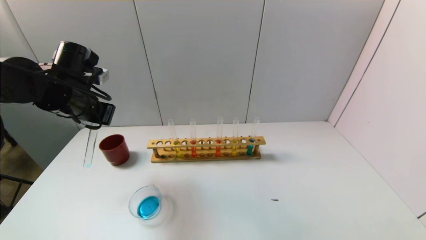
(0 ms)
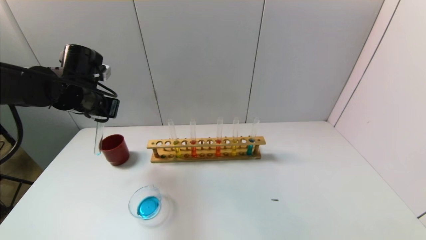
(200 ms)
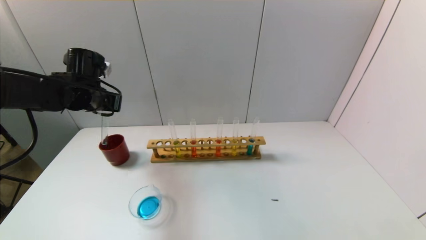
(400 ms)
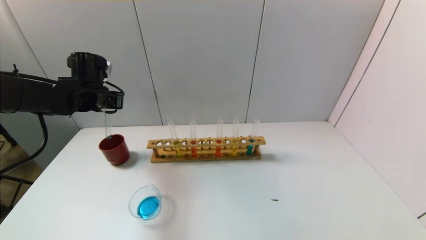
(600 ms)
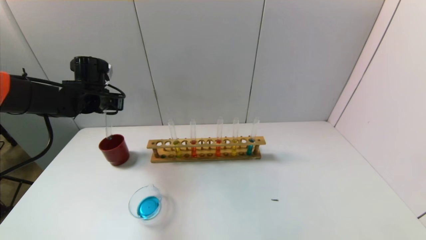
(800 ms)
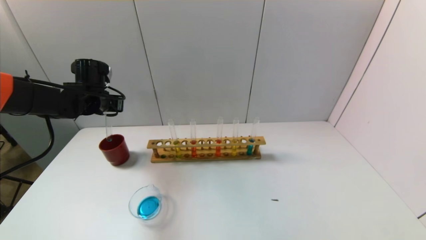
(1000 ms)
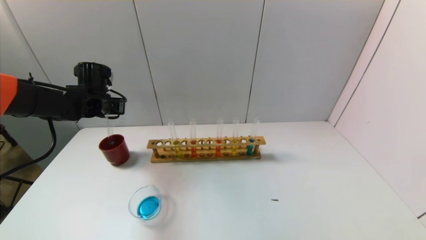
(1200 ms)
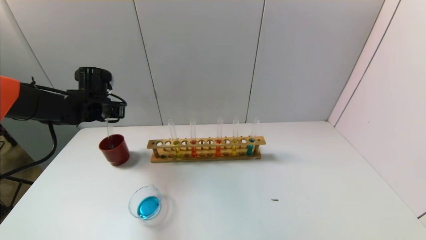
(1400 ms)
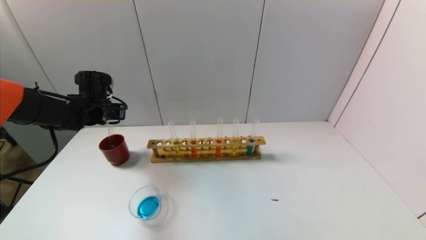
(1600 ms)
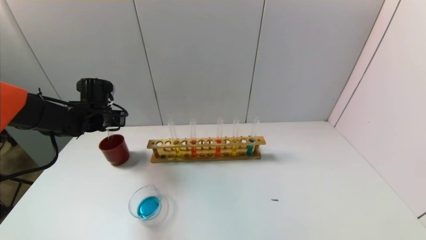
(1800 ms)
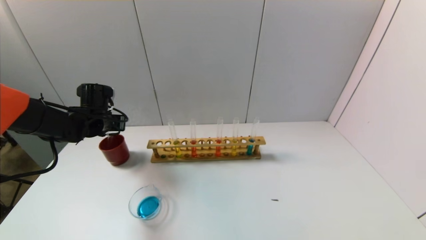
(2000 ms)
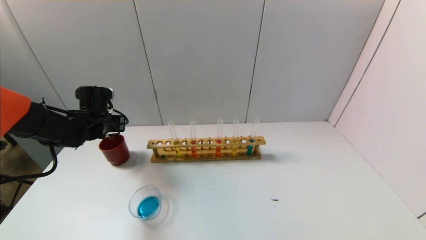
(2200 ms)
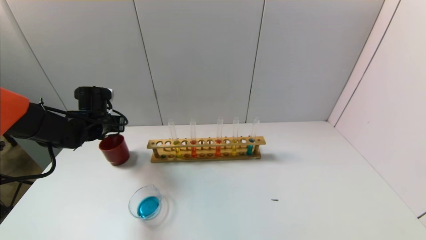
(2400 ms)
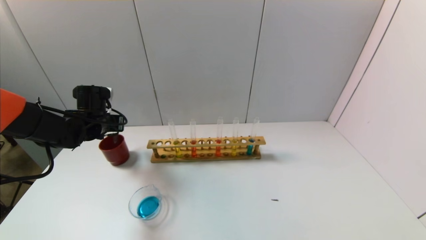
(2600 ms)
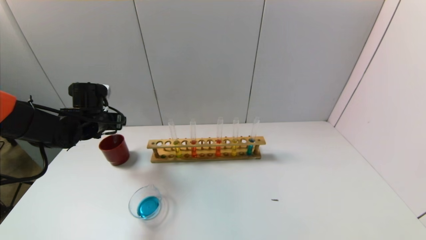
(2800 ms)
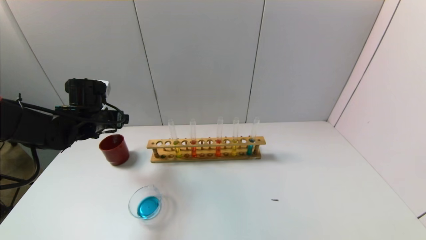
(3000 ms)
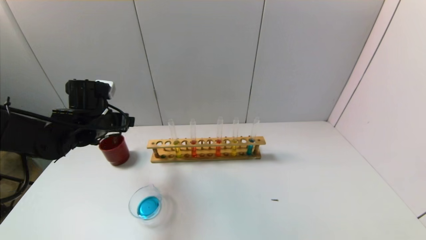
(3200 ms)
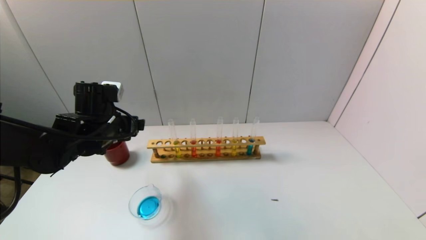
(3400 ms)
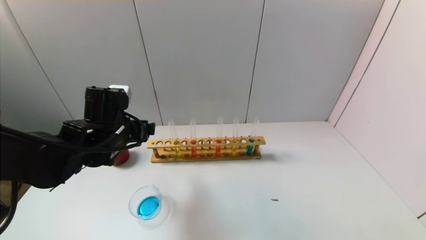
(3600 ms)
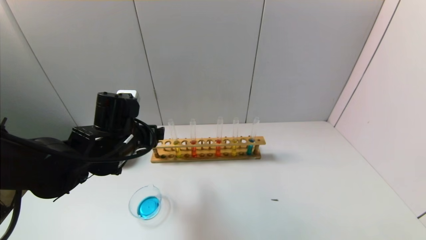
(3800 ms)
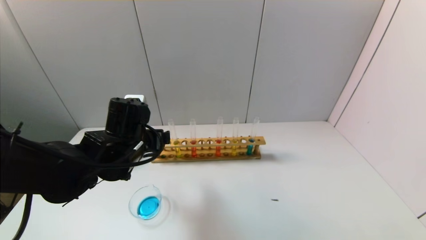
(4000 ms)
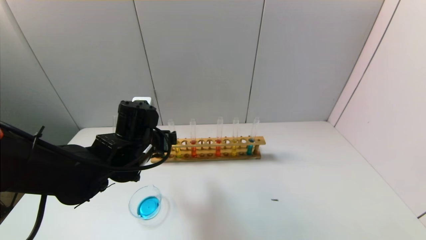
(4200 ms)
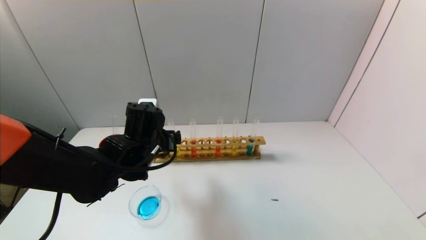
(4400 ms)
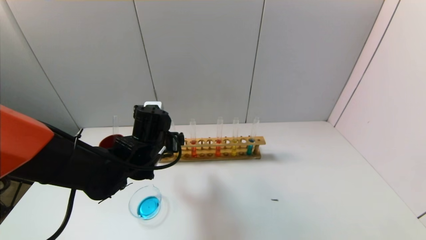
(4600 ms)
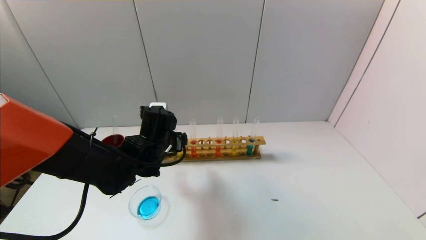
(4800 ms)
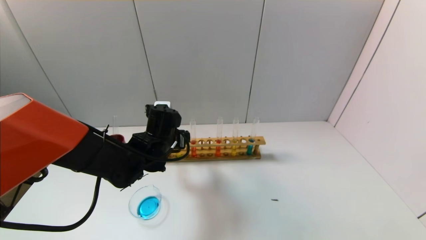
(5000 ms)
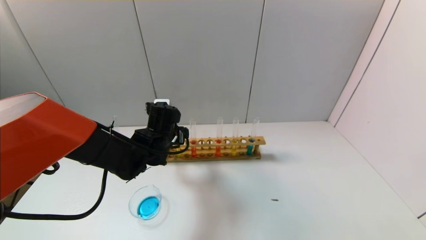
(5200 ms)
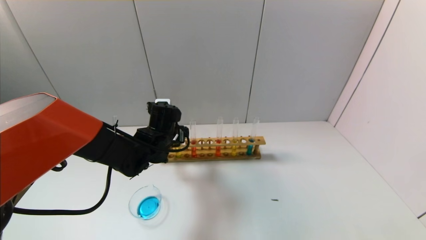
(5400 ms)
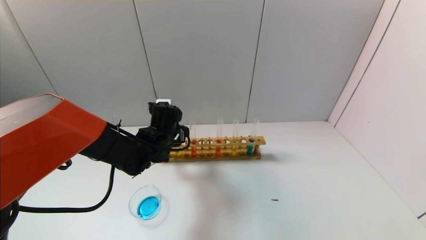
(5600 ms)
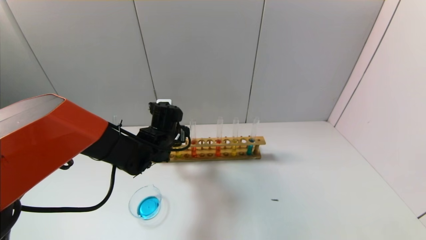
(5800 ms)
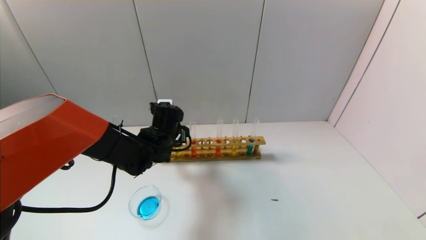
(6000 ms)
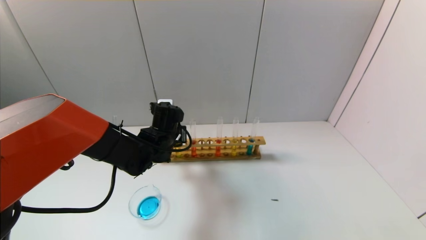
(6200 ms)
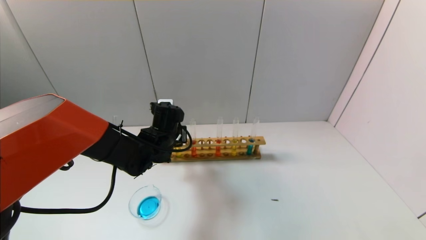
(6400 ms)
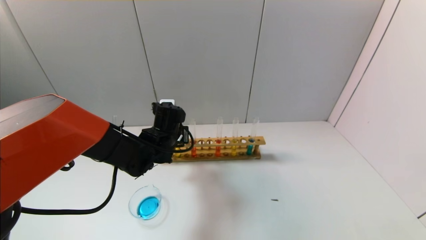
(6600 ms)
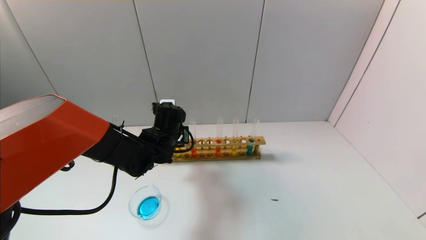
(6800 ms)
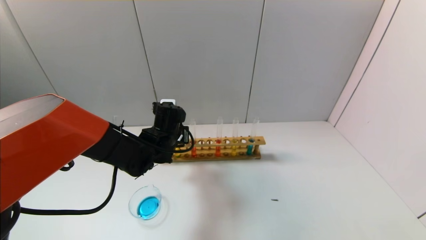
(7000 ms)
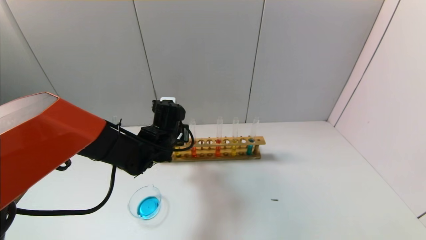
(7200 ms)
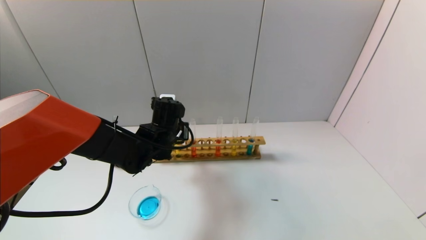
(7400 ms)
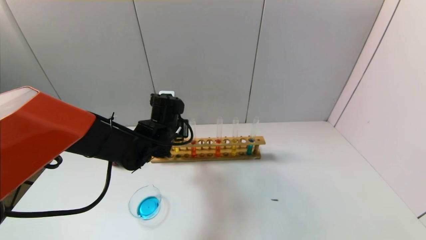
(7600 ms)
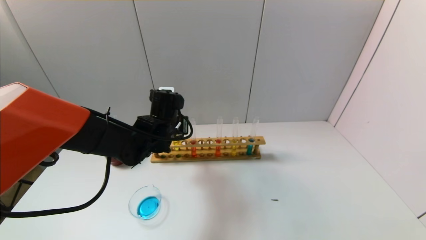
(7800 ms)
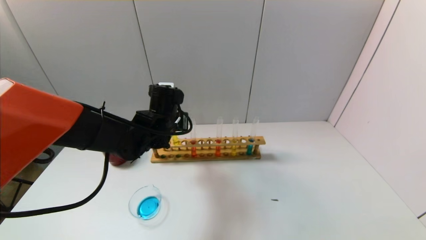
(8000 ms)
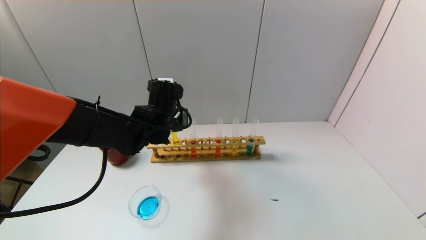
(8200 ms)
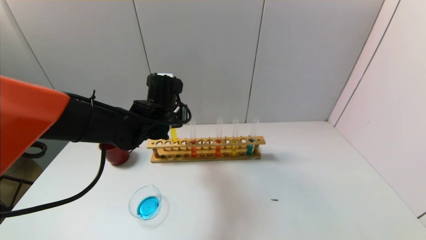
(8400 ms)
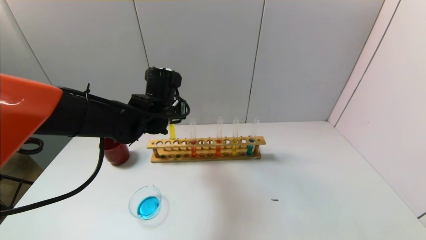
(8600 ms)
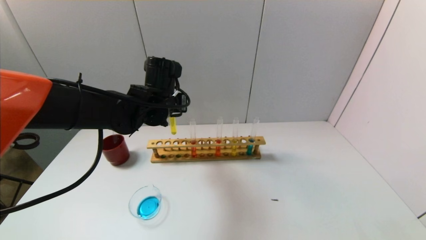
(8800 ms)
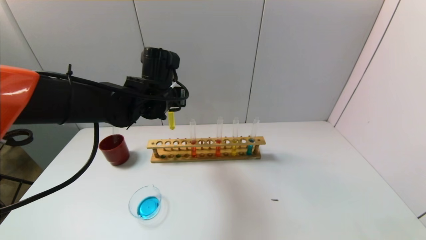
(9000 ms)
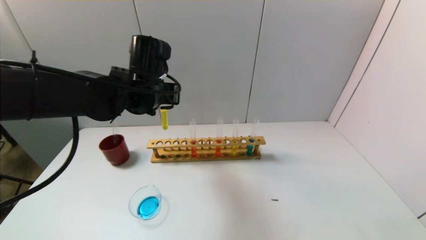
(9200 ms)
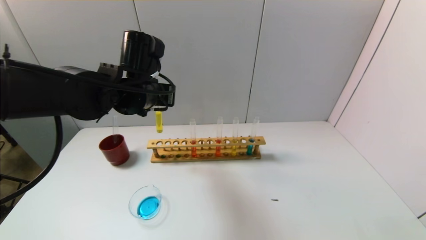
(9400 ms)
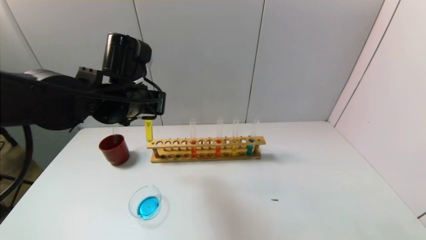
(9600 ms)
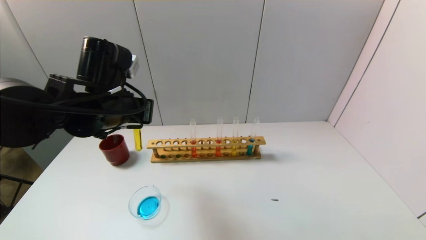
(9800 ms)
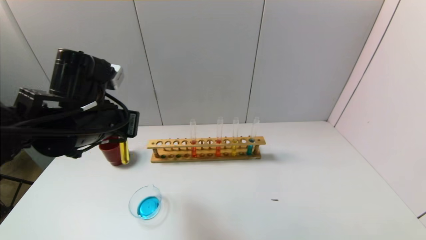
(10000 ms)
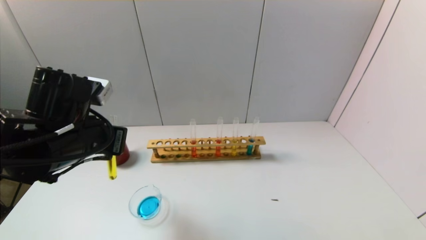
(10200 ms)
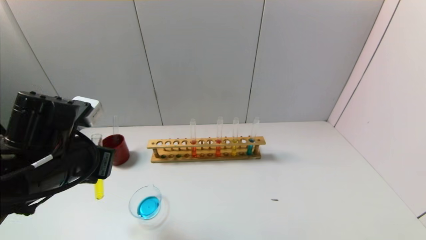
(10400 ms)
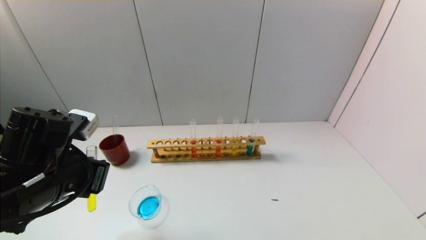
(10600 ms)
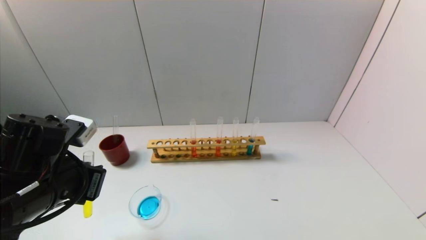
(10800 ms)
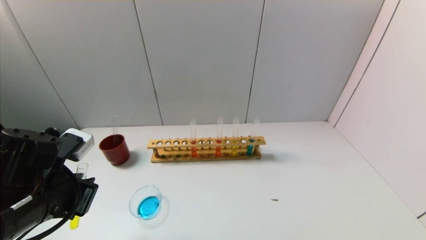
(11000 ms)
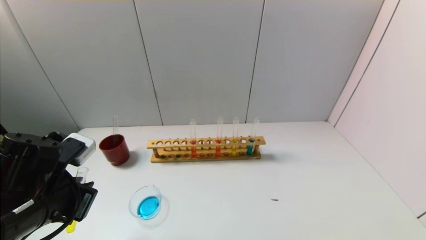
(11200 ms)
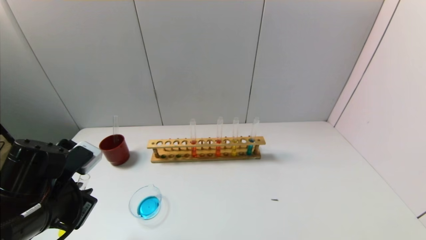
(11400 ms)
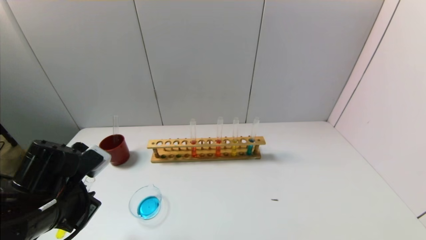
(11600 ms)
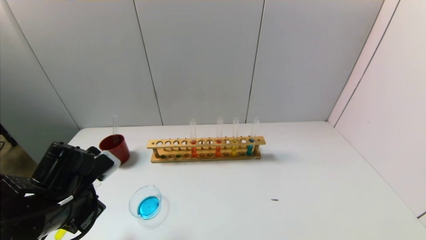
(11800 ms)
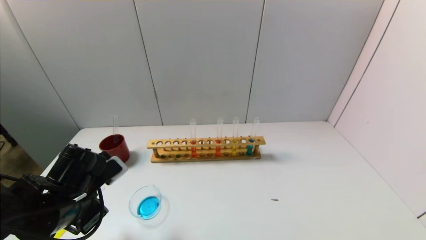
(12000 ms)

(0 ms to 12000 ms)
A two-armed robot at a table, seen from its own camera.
Task of the whole recording: pick up the test tube with yellow pigment and the test tube with blue pigment by grippers and pour them into the beaker.
Step, 0 ms - 2600 ms: Place the test tube into the brown cup with the left gripper.
Step, 2800 ms - 7000 ms: Grasp the yellow reagent with the left gripper.
0 ms - 1600 ms: The left gripper heads forward and downward, covering about 10 cm.
1600 ms - 3000 ms: The left gripper opens.
3000 ms - 4400 ms: The left gripper heads to the right and backward, covering about 15 cm.
4400 ms - 6000 ms: The left gripper shifts approximately 5 cm forward.
6000 ms - 7600 ms: The left gripper closes its fingers.
7600 ms - 9000 ms: The left gripper travels upward by some 10 cm.
9000 ms - 10400 ms: The left gripper shifts about 20 cm backward and to the left.
10400 ms - 12000 ms: The left gripper heads downward, covering some 10 cm.

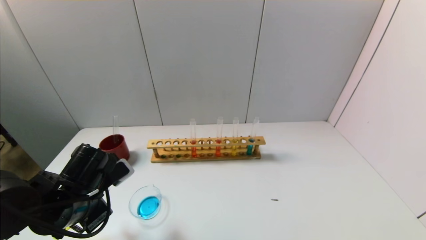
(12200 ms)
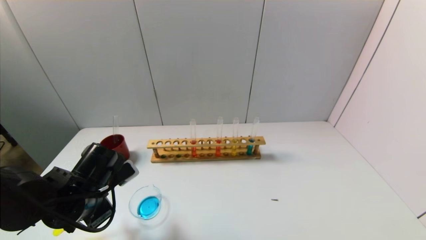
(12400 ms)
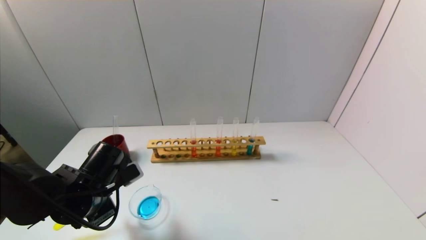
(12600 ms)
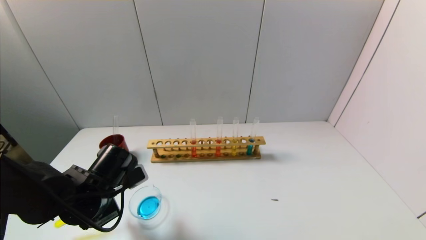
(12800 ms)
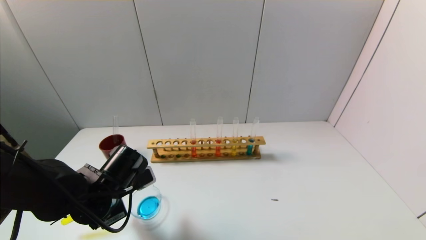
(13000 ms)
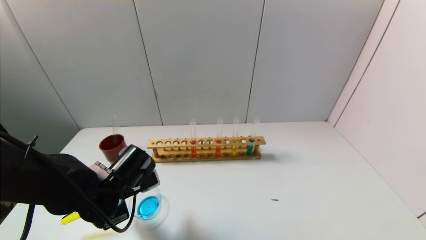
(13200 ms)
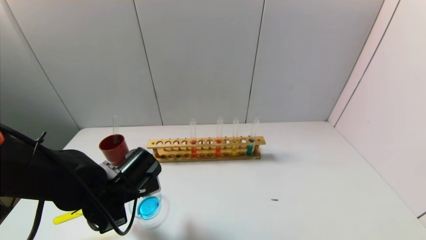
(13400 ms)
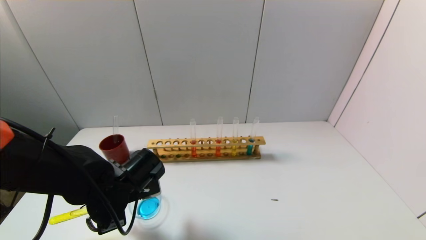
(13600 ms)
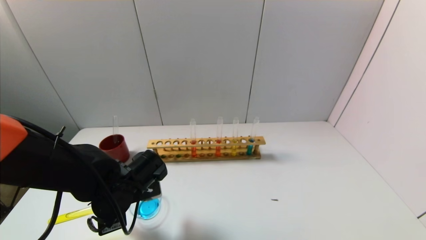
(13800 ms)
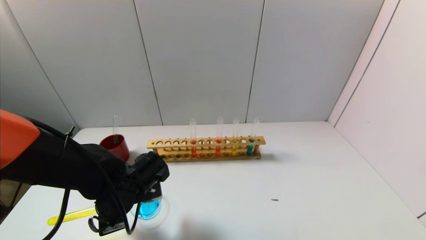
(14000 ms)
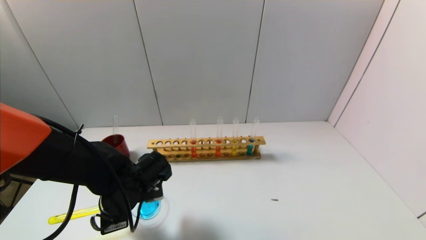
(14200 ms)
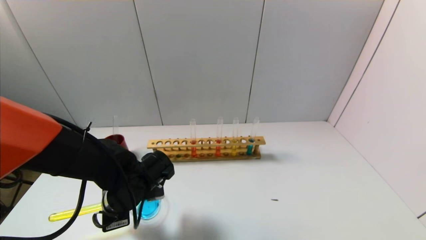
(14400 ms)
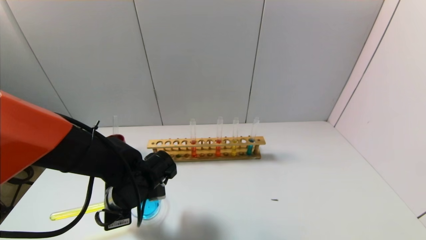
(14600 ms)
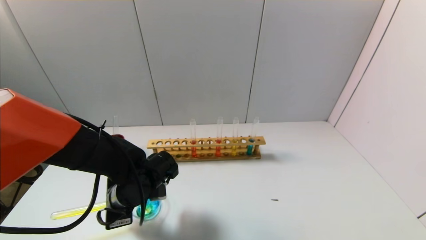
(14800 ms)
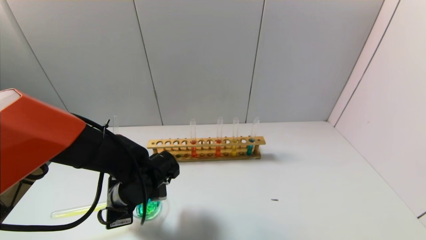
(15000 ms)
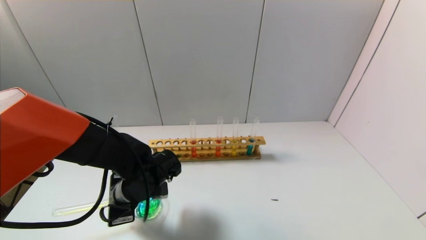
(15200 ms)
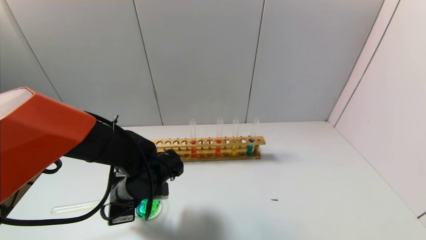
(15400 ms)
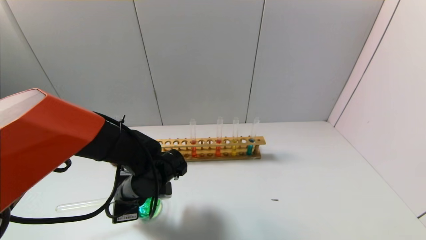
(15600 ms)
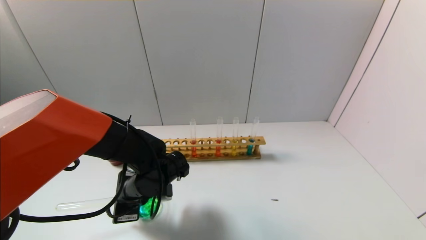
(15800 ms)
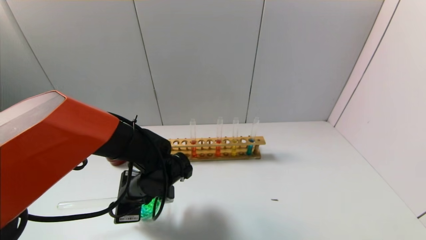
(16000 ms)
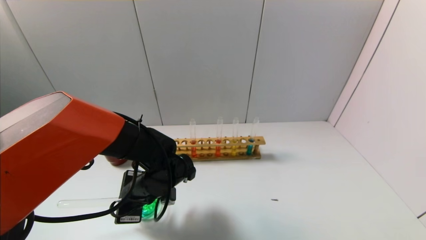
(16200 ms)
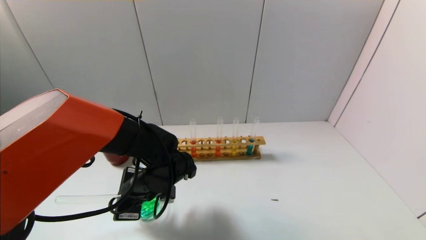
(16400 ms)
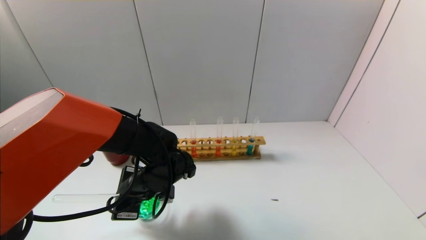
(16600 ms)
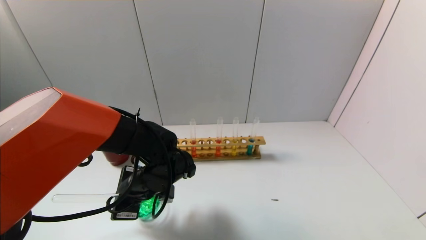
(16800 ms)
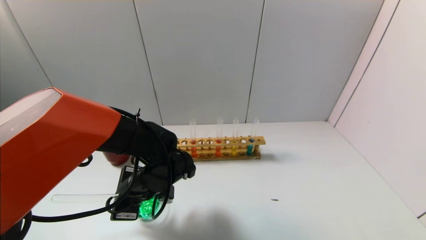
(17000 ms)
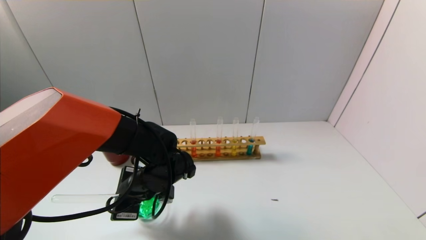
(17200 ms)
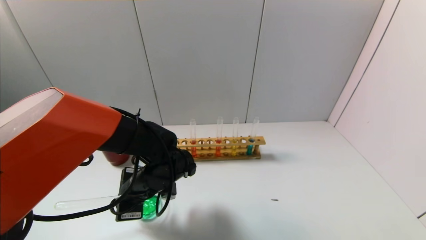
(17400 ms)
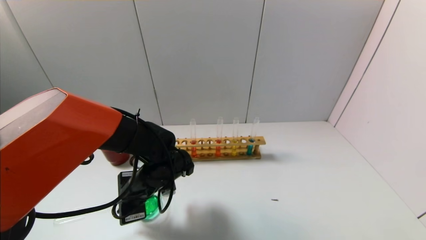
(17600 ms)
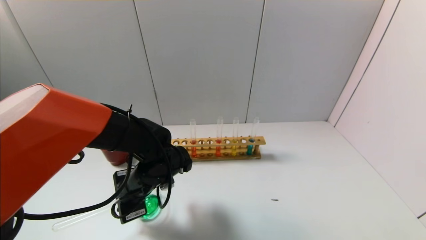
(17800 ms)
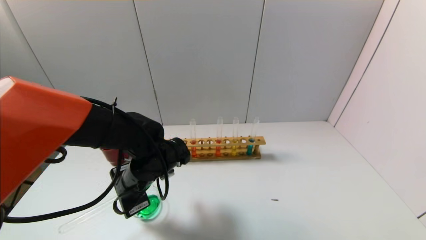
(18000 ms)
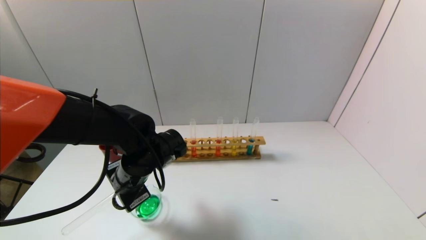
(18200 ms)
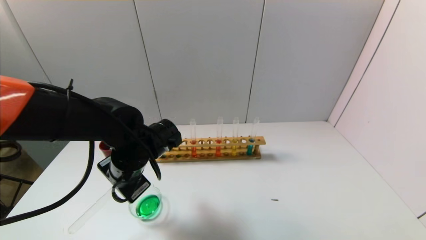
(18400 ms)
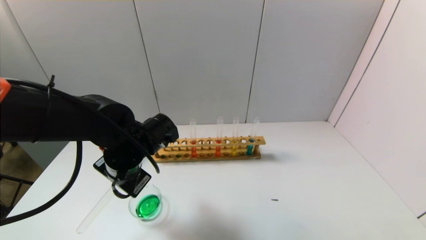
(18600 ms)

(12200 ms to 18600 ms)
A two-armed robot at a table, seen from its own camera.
Task of the whole recording: pick up the test tube with yellow pigment and the test tube with blue pigment by grippers and pour them into the beaker.
Step, 12200 ms - 17800 ms: Pour the yellow reagent into the graduated cylinder with the left gripper.
12200 ms - 13800 ms: The left gripper moves to the right, about 5 cm.
13800 ms - 15400 ms: The grippers move only a little.
15400 ms - 17000 ms: The grippers make only small movements.
17000 ms - 18600 ms: The left gripper is displaced upward by approximately 5 cm.
